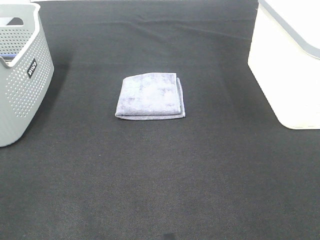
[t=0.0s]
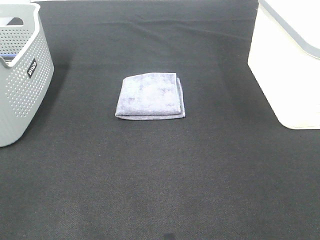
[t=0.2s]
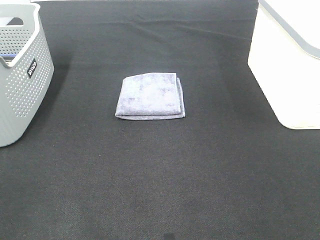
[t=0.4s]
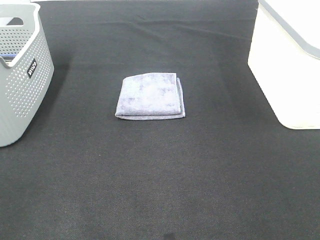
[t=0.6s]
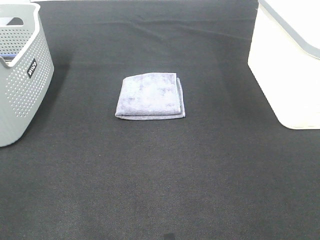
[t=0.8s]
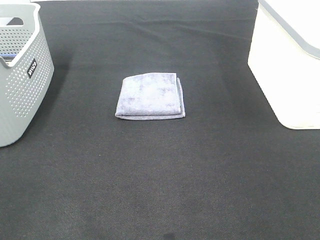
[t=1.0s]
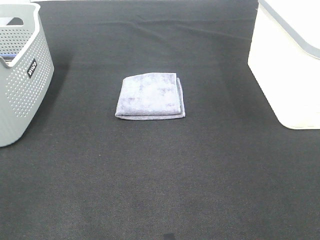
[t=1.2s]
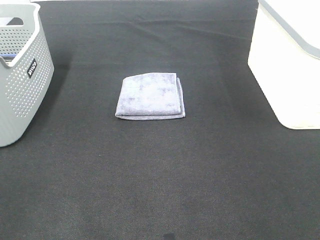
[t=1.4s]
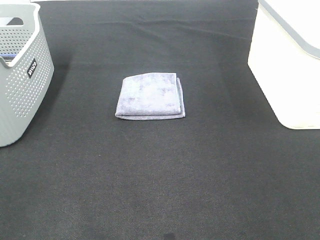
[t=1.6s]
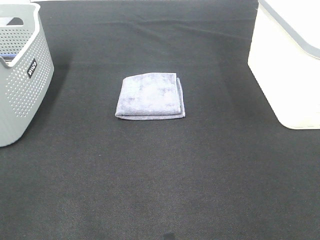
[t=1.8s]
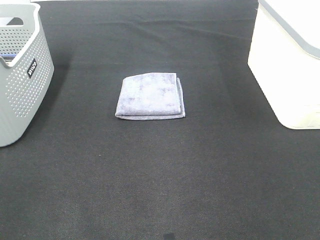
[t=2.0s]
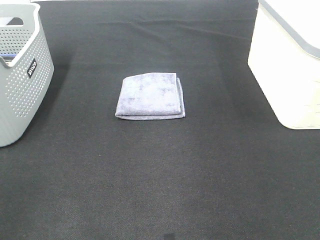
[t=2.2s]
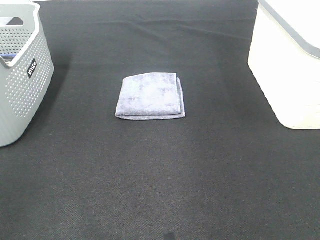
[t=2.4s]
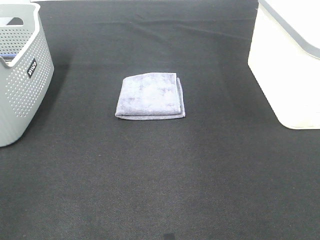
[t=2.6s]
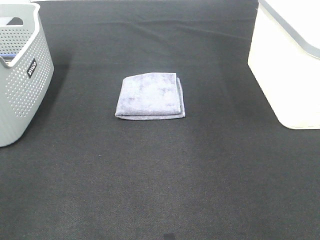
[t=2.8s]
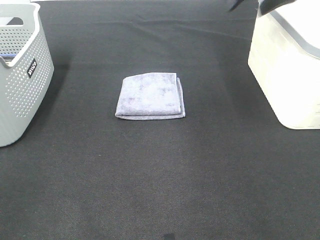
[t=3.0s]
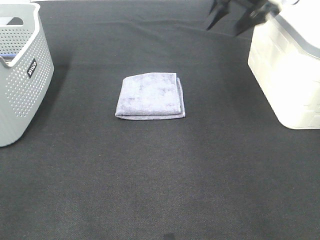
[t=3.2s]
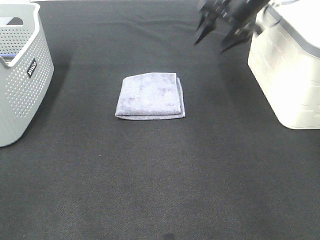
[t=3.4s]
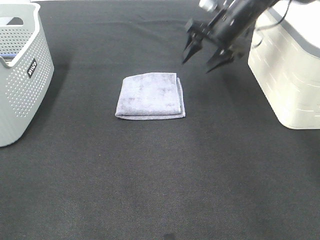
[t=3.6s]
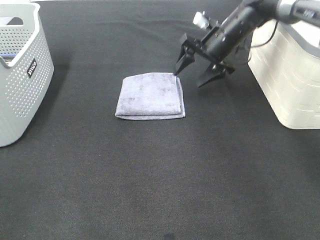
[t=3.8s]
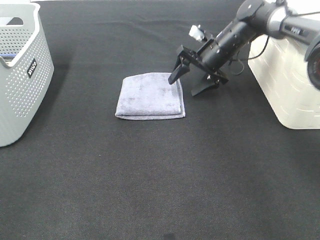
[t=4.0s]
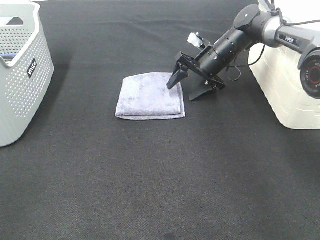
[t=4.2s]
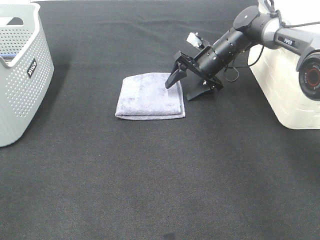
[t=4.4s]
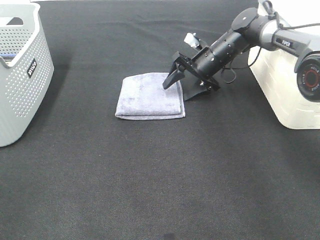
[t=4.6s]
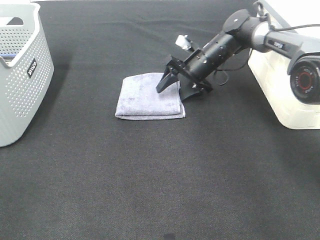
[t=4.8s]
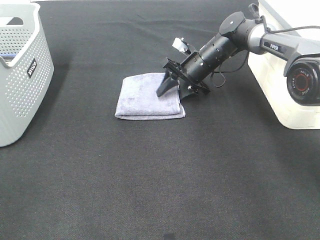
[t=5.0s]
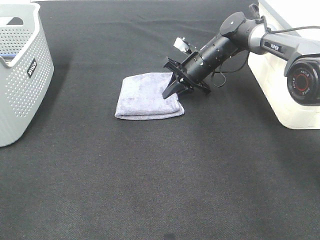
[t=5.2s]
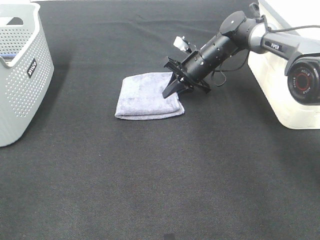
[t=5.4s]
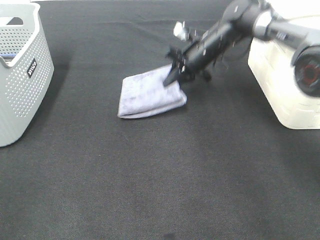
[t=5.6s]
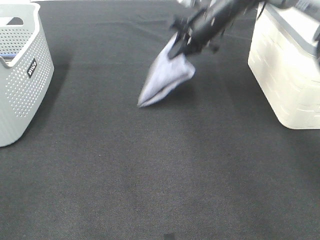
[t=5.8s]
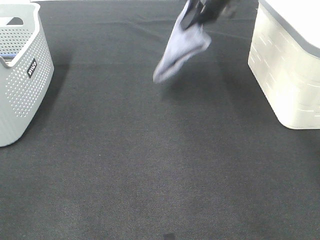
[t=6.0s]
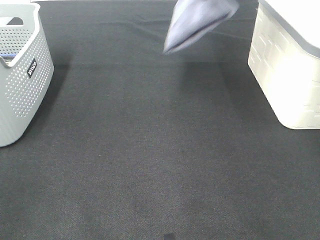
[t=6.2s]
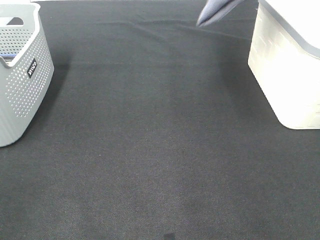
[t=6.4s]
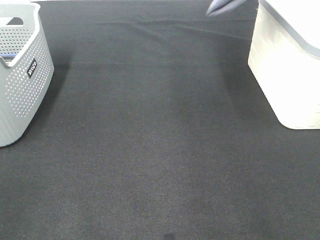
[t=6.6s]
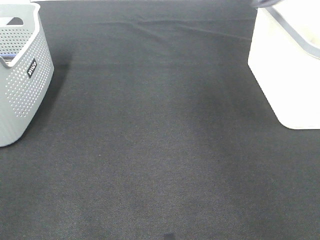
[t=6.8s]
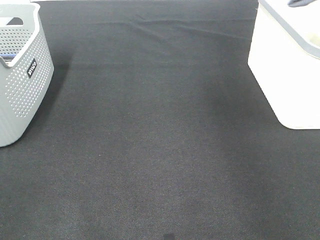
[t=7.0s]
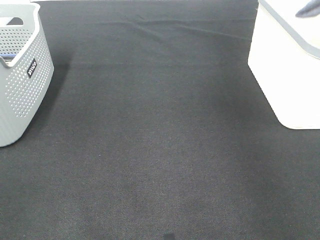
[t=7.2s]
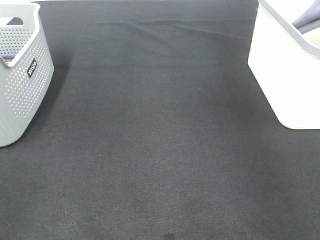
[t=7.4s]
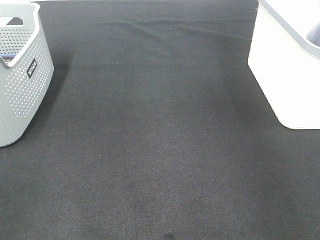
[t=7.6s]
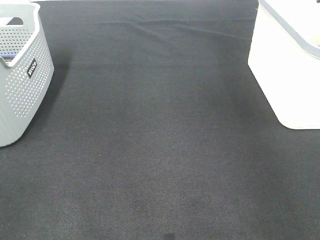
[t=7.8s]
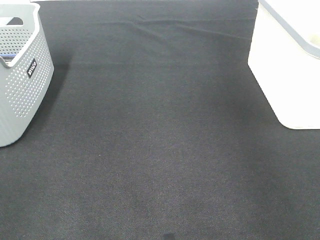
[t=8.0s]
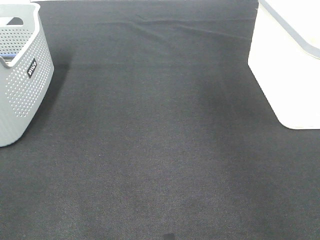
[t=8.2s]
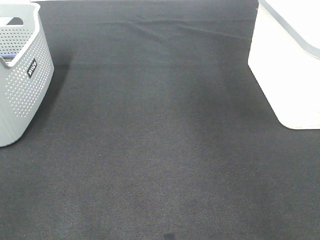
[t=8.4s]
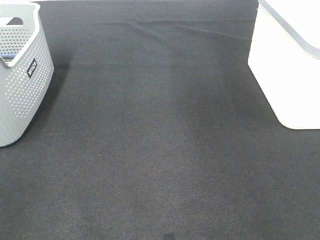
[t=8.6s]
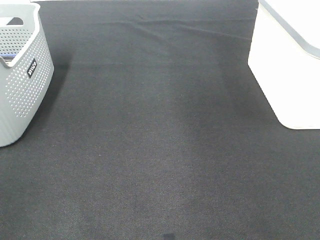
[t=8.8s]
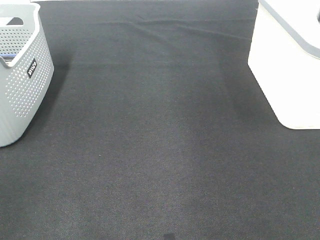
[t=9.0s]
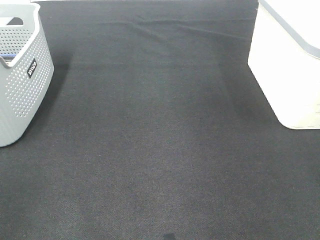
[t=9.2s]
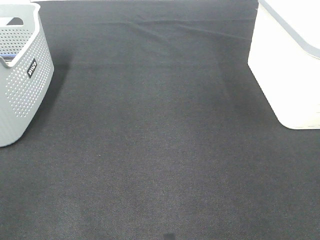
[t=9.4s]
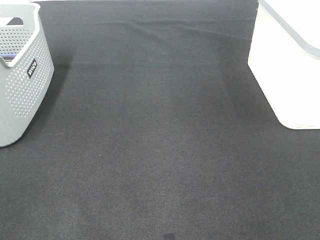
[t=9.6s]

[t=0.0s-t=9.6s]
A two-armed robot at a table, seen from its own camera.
Step, t=0.0s to t=5.2s: Right hand: grab the folded grey towel.
Step, t=5.4s to t=7.8s: Right hand: place the grey towel in right basket.
t=1.6s to t=3.2s: The right gripper goes some 50 cm forward.
t=3.2s to t=4.8s: The right gripper heads downward and to the left, covering roughly 20 cm.
t=4.8s to t=6.4s: The right gripper goes roughly 30 cm upward, and closes up.
t=6.4s to t=8.0s: The right gripper moves to the right and downward, roughly 15 cm, and opens up.

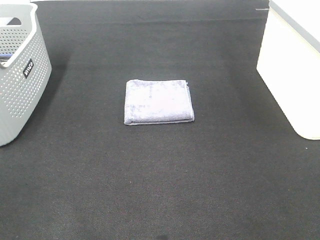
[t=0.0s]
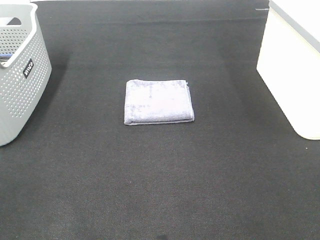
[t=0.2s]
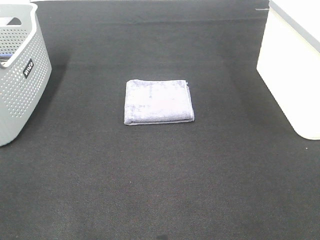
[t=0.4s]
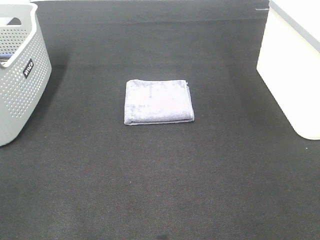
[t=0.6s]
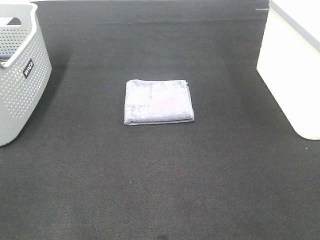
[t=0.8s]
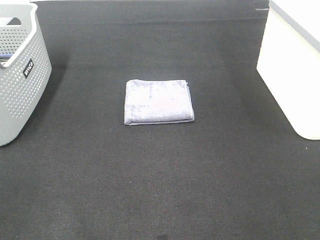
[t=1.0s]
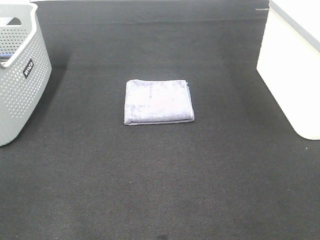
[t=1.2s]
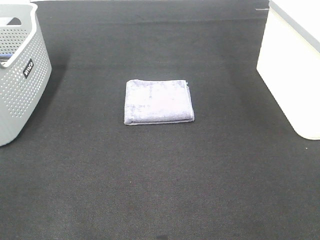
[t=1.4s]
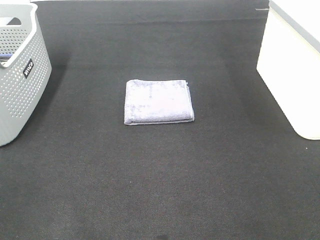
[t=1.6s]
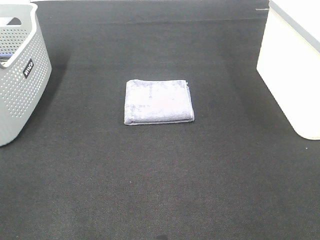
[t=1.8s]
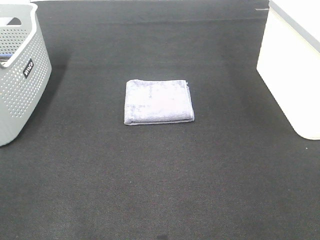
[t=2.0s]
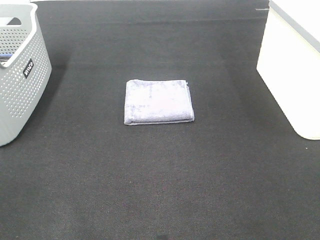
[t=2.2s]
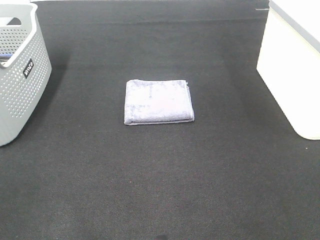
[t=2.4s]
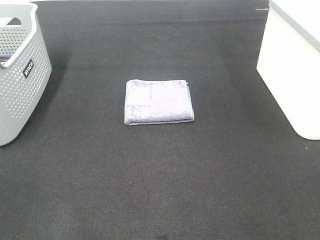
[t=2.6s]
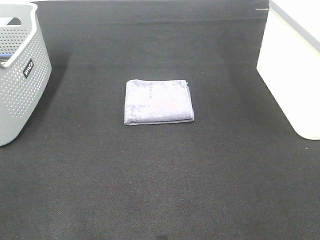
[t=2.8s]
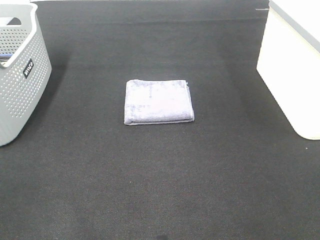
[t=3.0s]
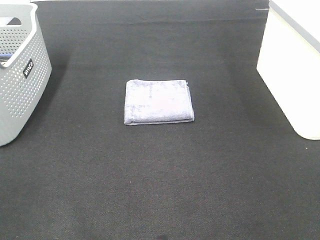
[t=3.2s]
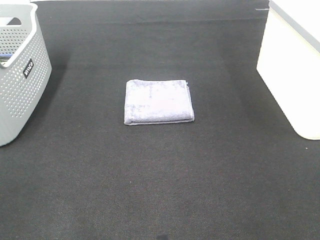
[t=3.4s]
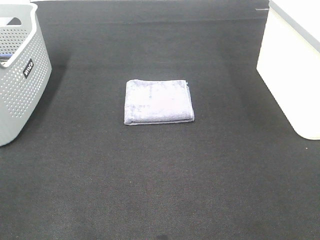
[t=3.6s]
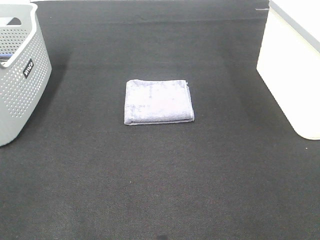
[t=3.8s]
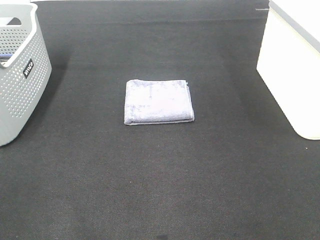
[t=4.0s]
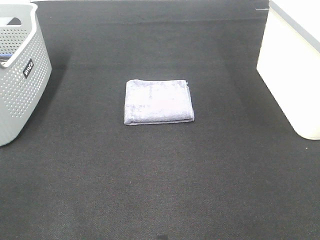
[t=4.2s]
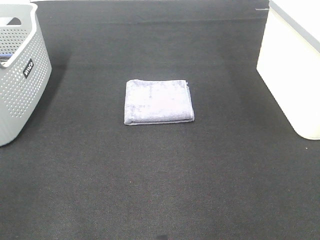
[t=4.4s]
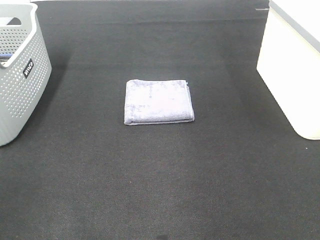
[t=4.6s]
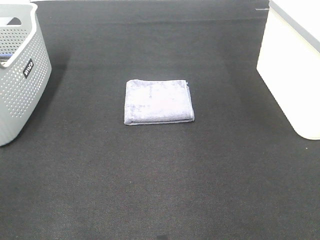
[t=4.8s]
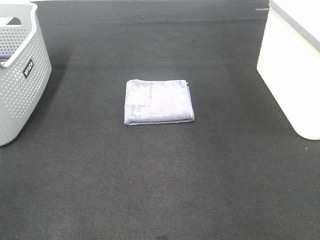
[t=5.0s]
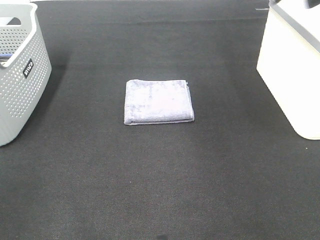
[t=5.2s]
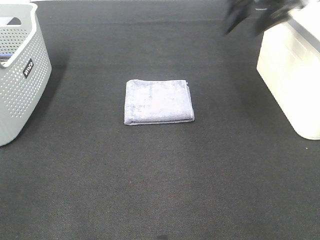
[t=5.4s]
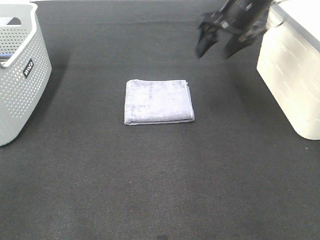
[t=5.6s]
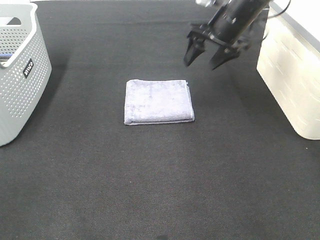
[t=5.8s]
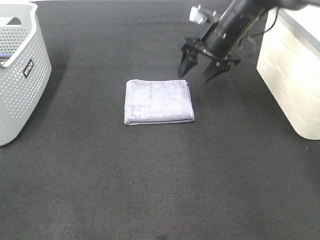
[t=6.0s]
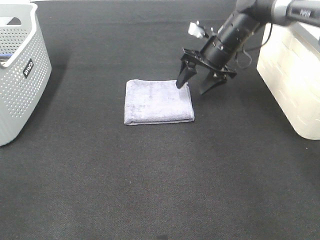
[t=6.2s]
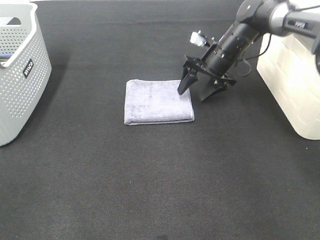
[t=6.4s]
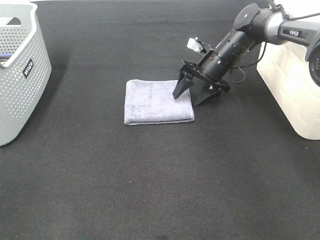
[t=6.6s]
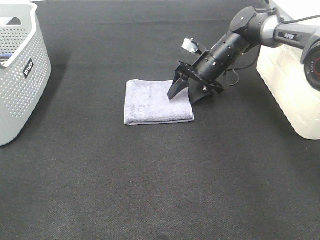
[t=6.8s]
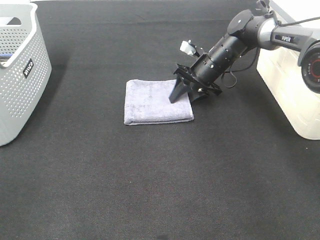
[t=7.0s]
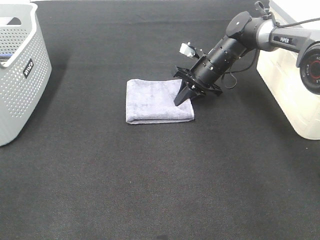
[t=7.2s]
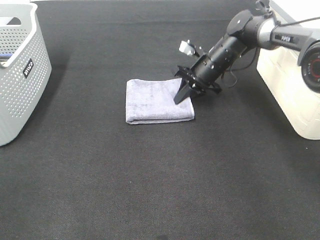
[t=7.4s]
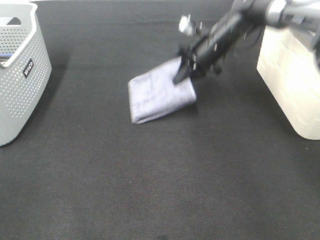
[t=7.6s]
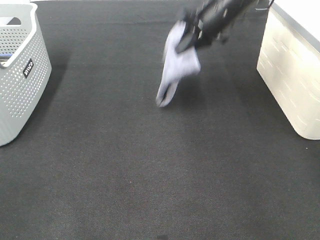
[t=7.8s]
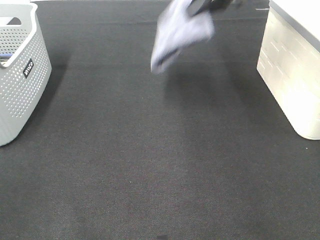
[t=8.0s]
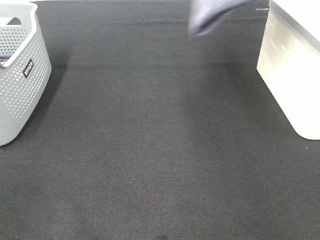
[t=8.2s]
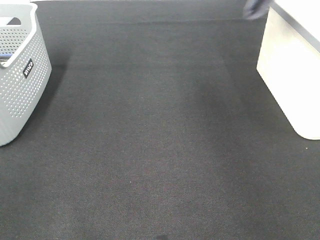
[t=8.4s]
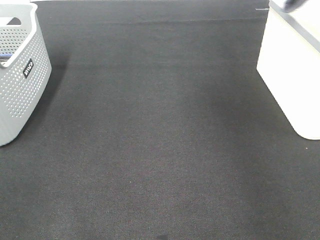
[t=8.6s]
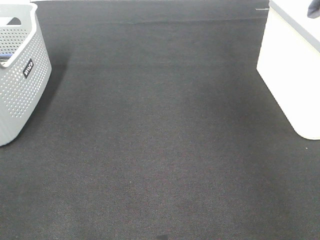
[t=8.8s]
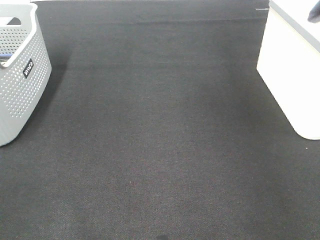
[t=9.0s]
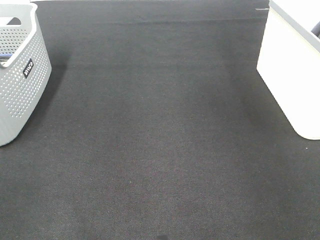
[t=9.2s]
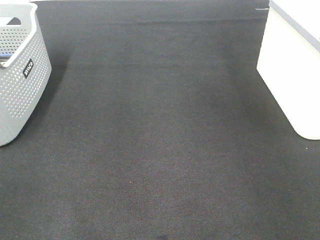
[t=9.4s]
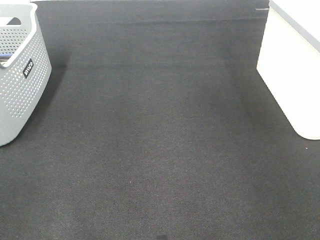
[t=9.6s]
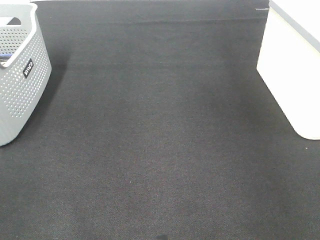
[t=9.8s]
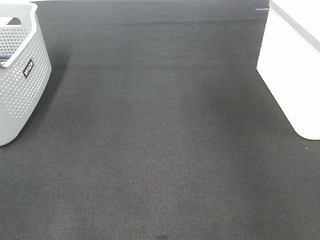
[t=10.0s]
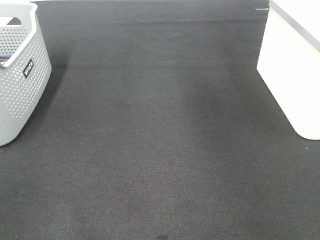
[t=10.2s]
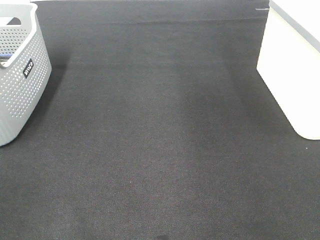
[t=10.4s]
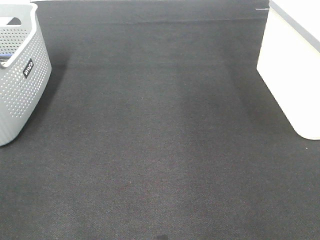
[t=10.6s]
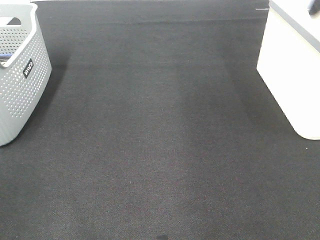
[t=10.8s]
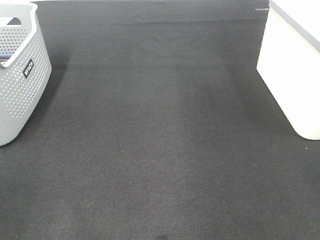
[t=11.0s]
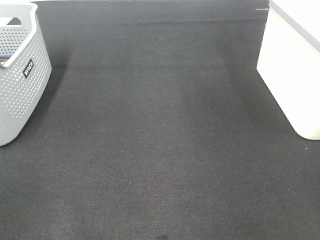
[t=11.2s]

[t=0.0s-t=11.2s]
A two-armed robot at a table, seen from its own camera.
Step, t=0.0s to t=7.2s: Right hand: grab the folded grey towel.
Step, t=7.4s to t=9.4s: Right hand: place the grey towel in right basket.
t=0.0s to t=3.2s: The two grippers keep their place.
t=4.8s to t=6.4s: The right gripper goes about 40 cm downward, forward and to the left.
t=6.4s to t=8.0s: The right gripper shifts approximately 20 cm upward, and closes up.
t=8.0s to t=9.6s: The right gripper goes approximately 25 cm to the right, and opens up.

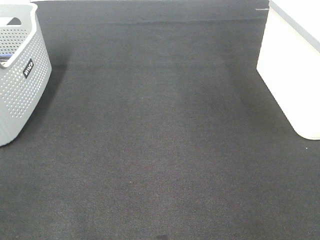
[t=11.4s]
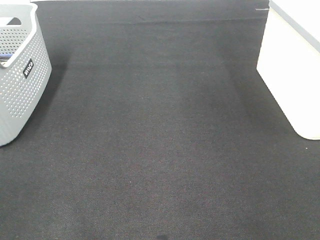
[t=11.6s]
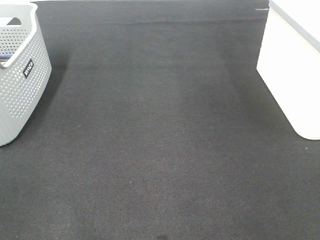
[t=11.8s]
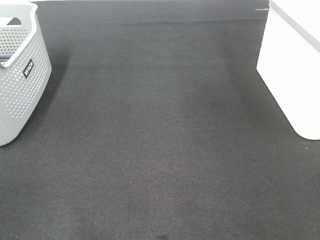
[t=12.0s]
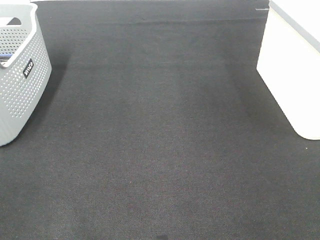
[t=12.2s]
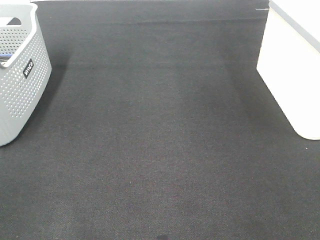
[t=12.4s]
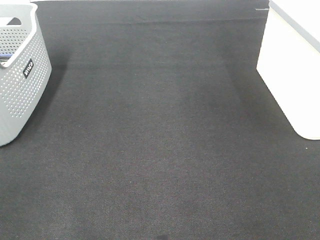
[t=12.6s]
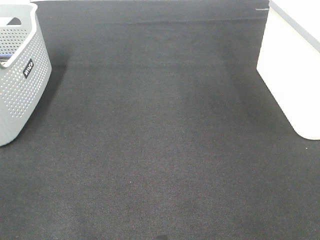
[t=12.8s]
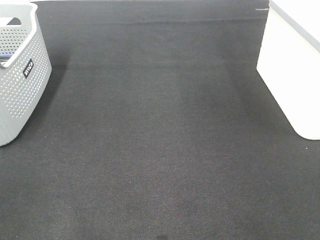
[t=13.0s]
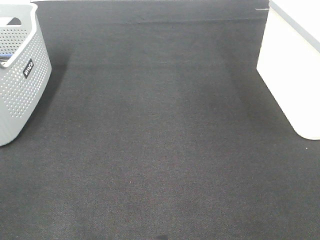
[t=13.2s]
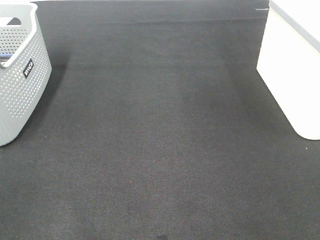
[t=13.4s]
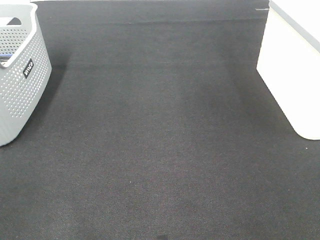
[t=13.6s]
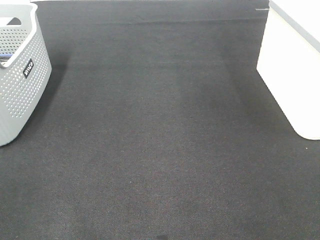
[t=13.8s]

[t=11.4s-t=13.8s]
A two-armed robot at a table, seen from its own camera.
t=12.6s to t=13.8s: Neither gripper changes place.
